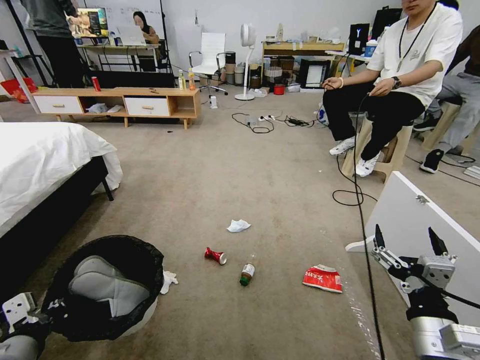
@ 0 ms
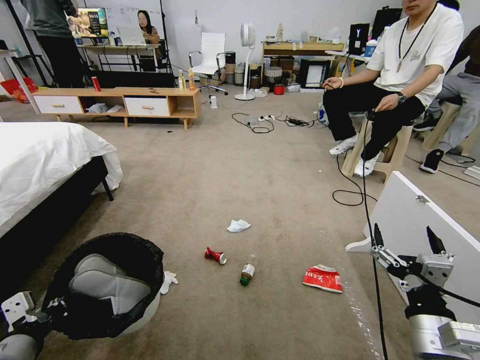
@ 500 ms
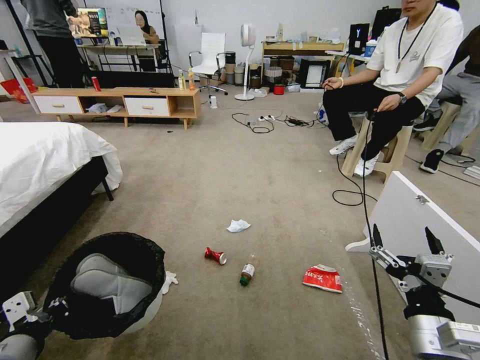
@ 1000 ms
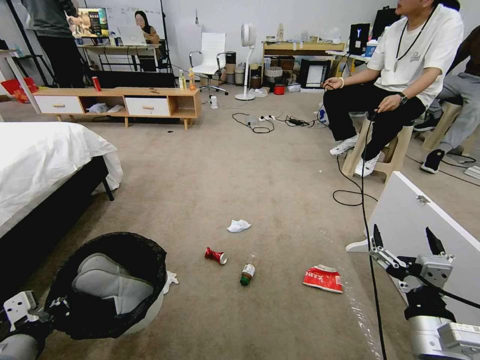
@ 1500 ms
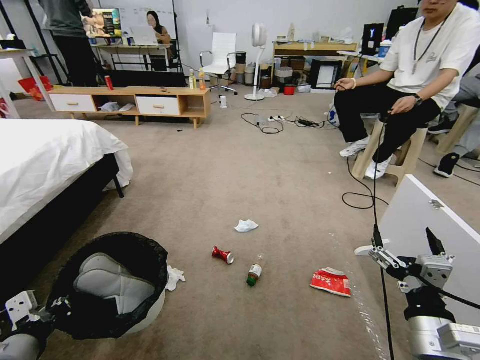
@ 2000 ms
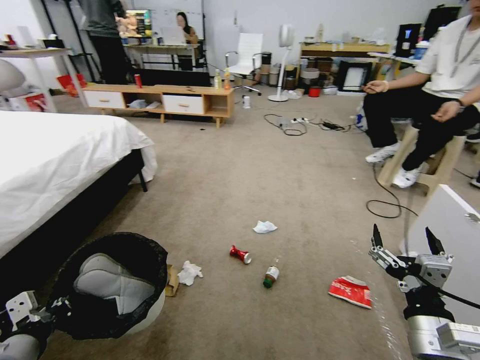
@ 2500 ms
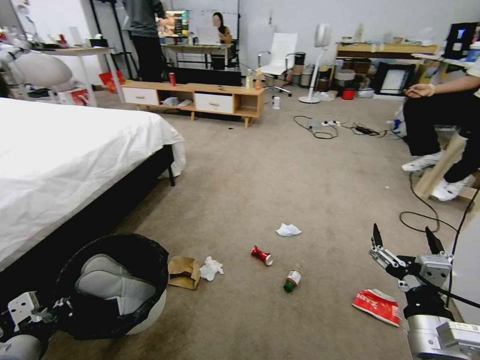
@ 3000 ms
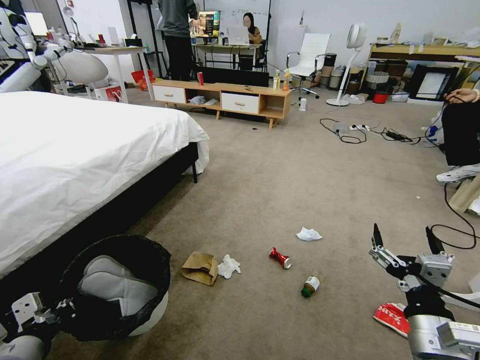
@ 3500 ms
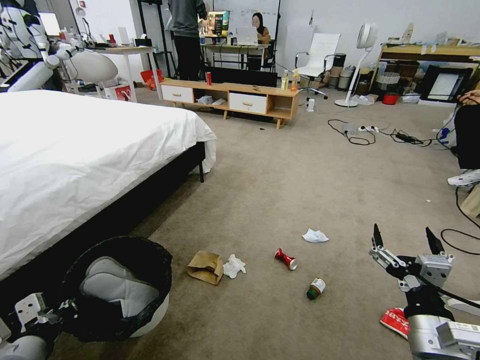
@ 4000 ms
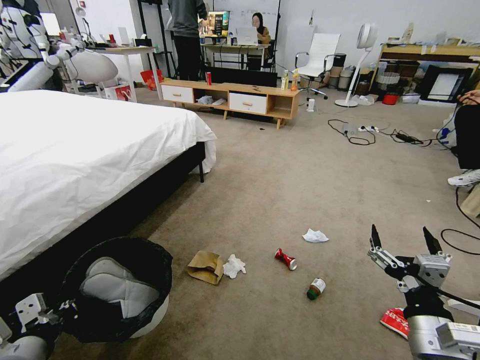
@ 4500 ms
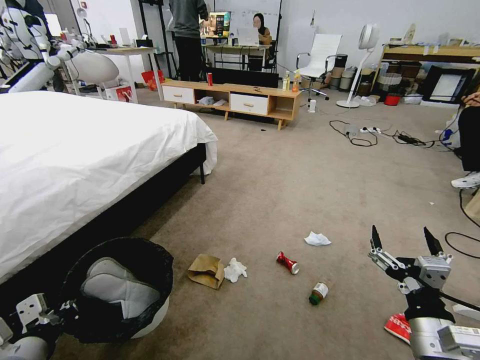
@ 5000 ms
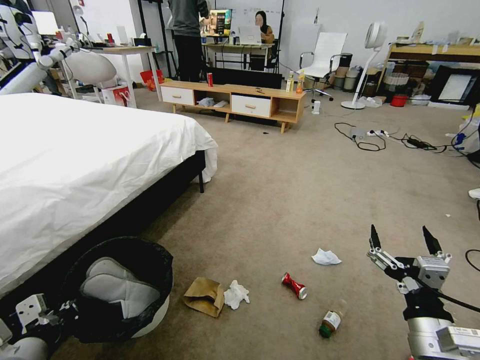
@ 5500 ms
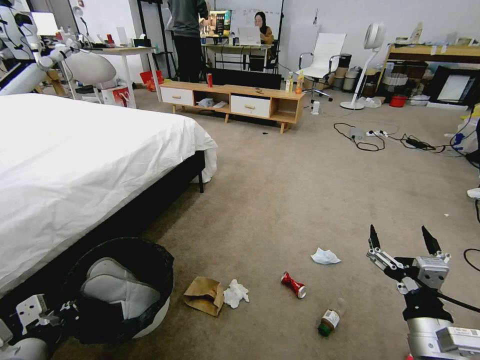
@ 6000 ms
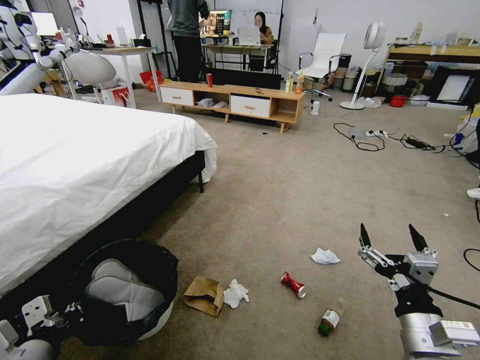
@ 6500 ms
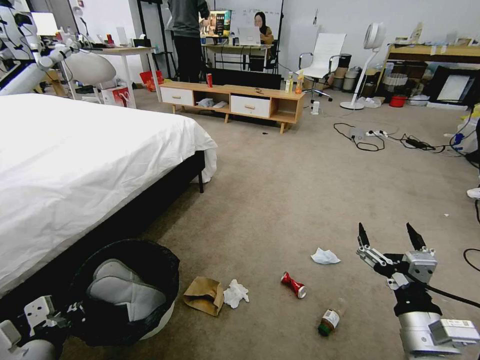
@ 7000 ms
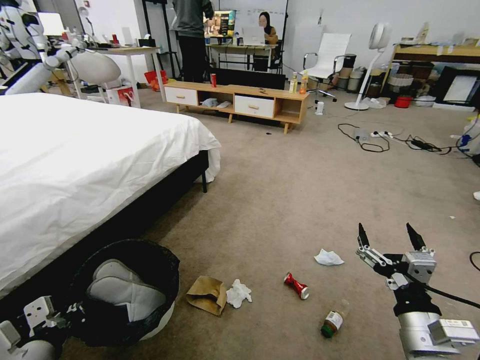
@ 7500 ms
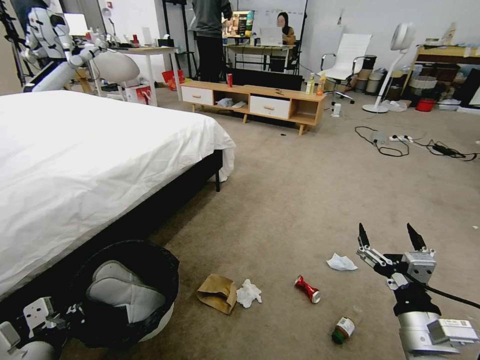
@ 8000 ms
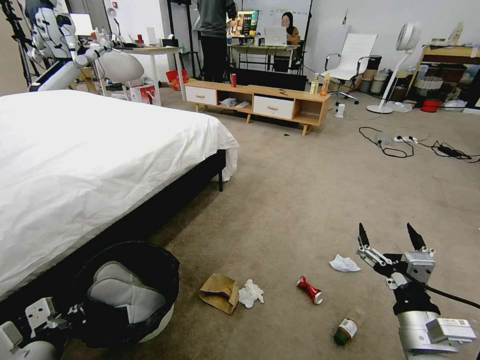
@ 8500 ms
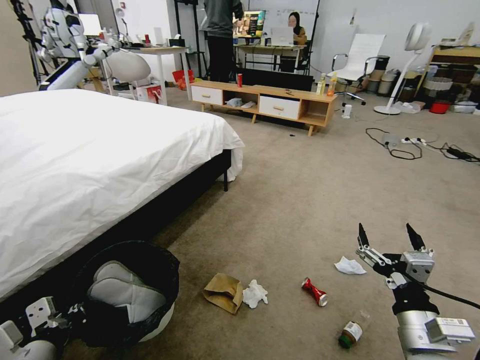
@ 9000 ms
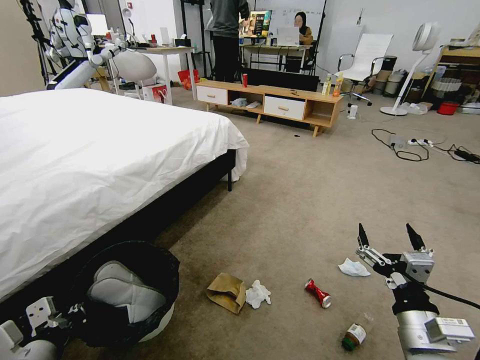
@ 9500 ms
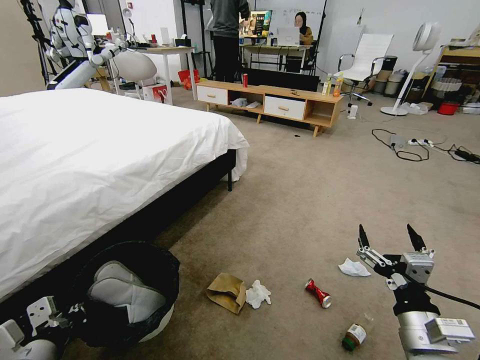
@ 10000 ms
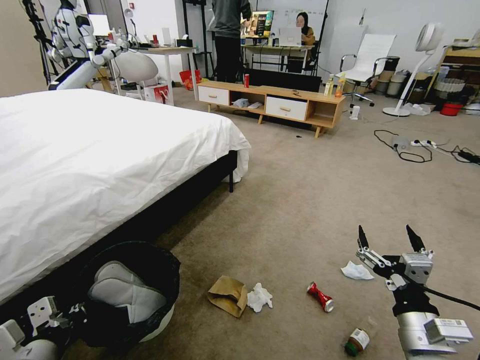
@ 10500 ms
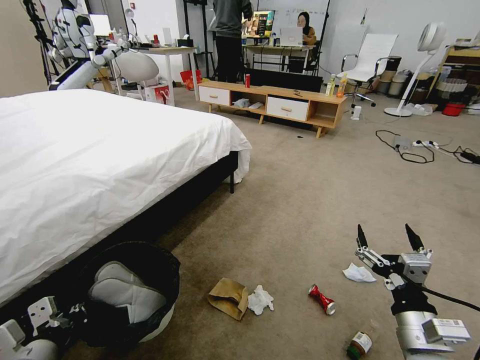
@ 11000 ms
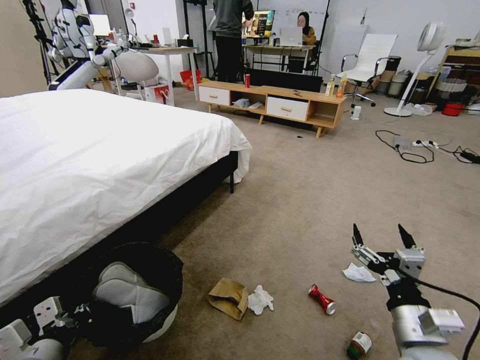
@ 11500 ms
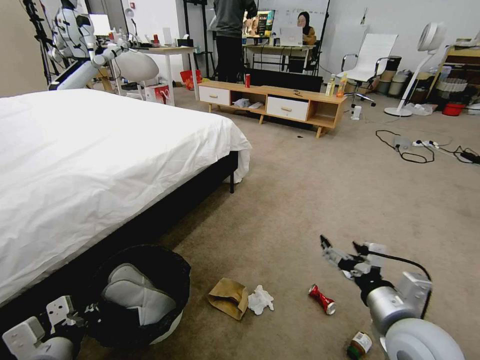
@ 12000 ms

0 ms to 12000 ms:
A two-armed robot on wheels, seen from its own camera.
Task of the whole recording: Pick up the trash bin and place the garbage on the floor into it.
10000 ms to 12000 ms: The right gripper moves approximately 5 cm.

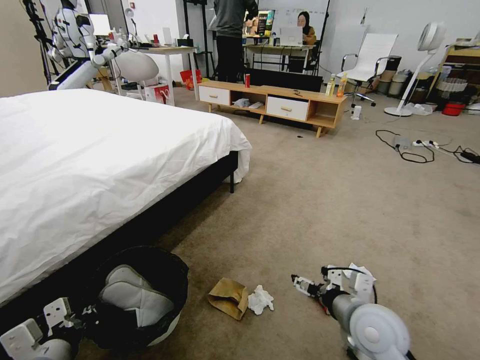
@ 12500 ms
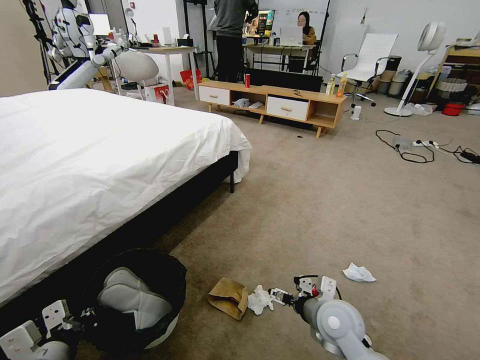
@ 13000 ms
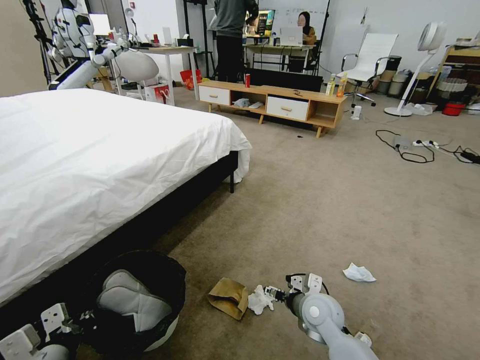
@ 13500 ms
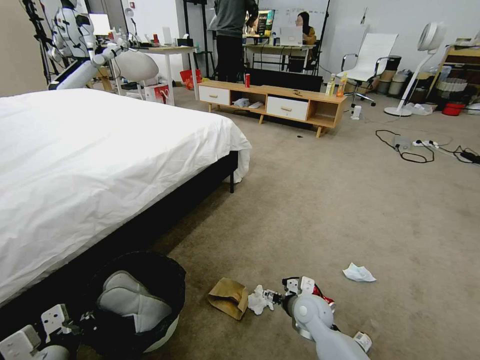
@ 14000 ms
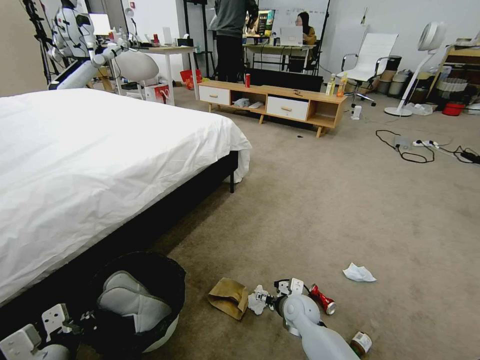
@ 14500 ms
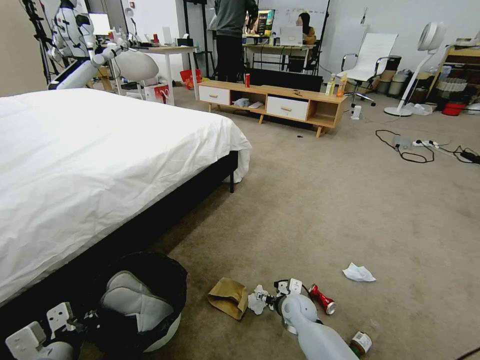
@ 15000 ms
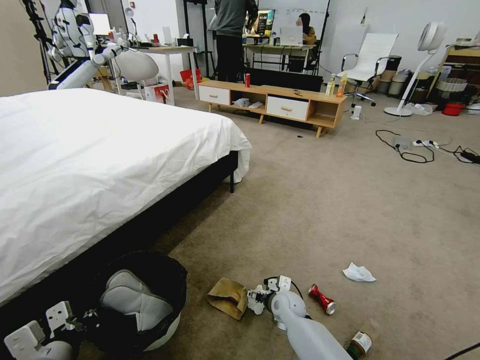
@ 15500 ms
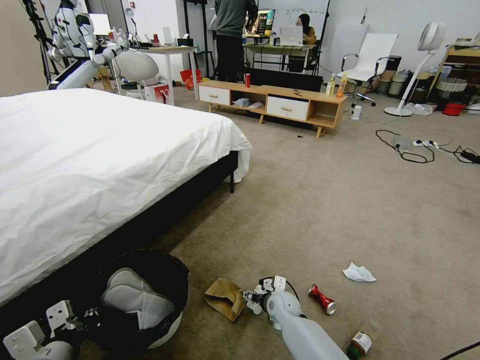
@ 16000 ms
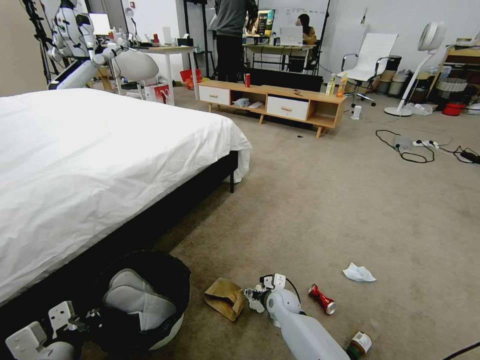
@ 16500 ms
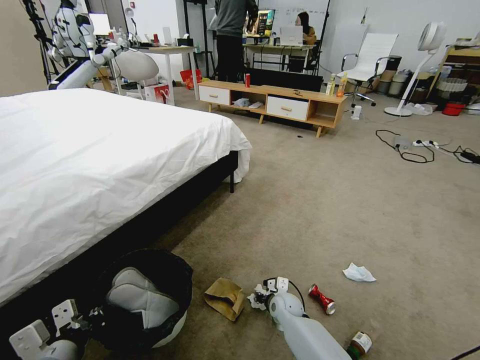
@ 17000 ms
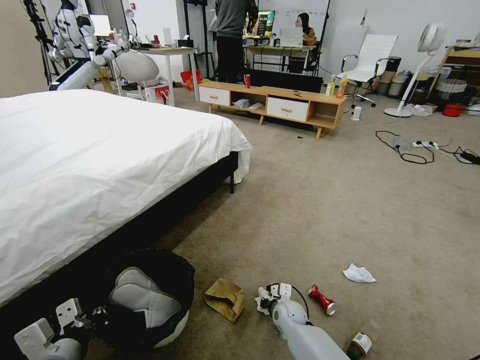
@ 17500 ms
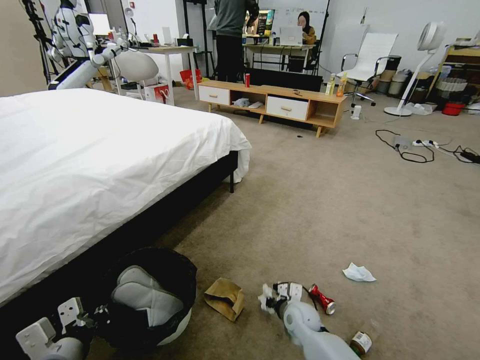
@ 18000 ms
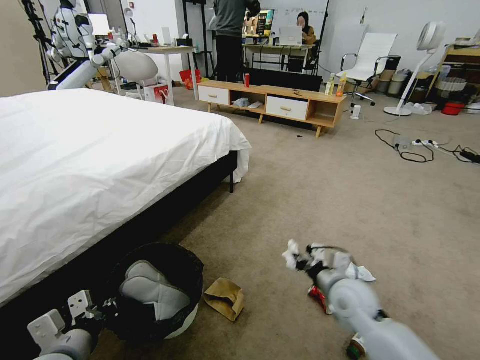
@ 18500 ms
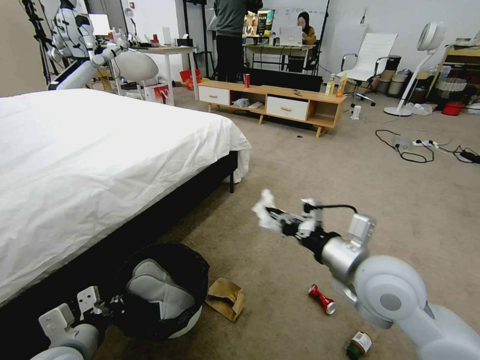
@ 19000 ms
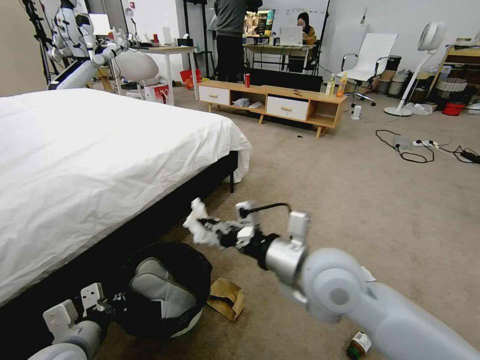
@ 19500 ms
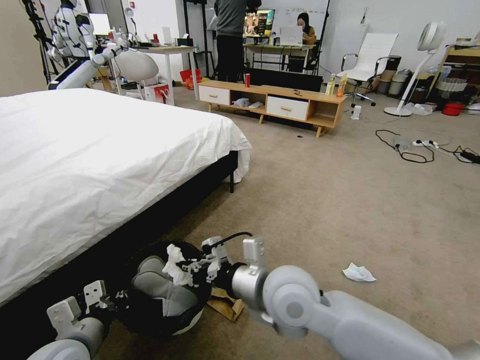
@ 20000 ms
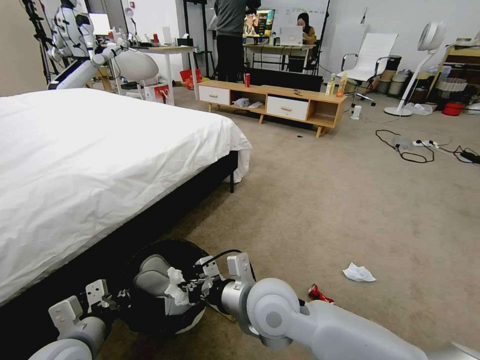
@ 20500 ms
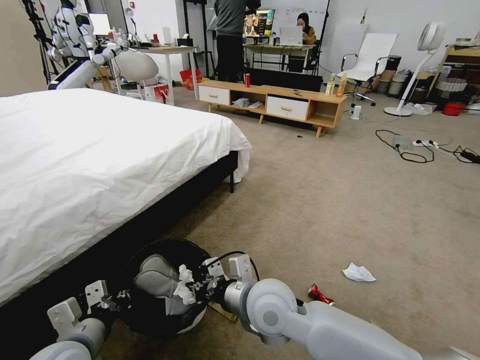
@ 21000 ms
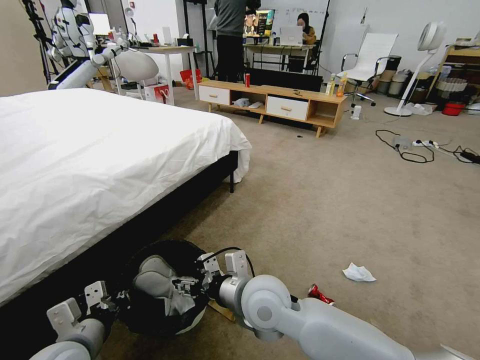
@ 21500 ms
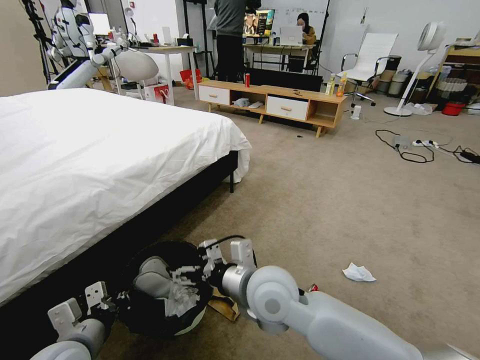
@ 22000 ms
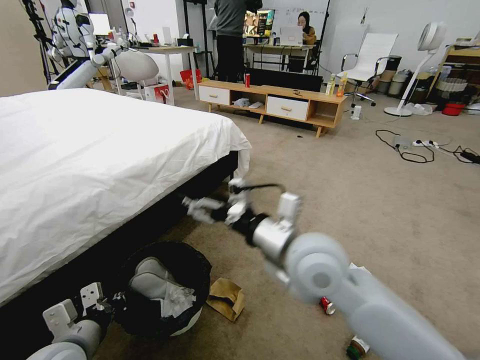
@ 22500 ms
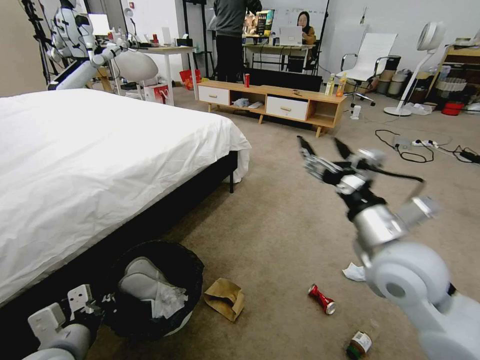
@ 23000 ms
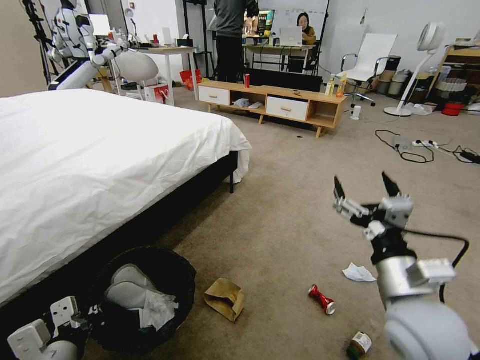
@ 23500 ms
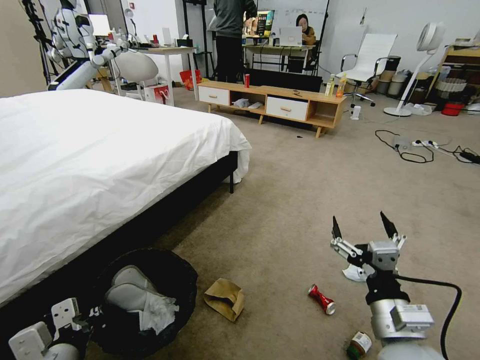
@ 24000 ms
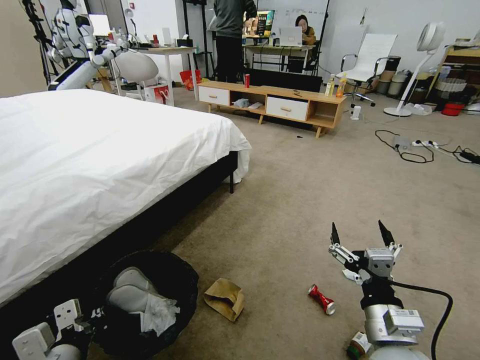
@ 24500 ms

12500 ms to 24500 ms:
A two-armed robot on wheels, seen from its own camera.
Task of the whole recording: Pick up the trash bin and place the garbage on the floor into it.
12500 ms to 14500 ms: The right gripper moves downward, forward and to the left, about 25 cm.
14500 ms to 16500 ms: The right gripper shifts by about 5 cm.
16500 ms to 18500 ms: The right gripper heads upward, to the right and backward, covering some 25 cm, and closes its fingers.
18500 ms to 20500 ms: The right gripper shifts approximately 25 cm to the left and upward.
20500 ms to 22500 ms: The right gripper is displaced upward and to the right by about 15 cm, and opens its fingers.
22500 ms to 24500 ms: The right gripper heads downward, to the right and backward, covering about 25 cm, while the left gripper ends up roughly 5 cm from where it was.

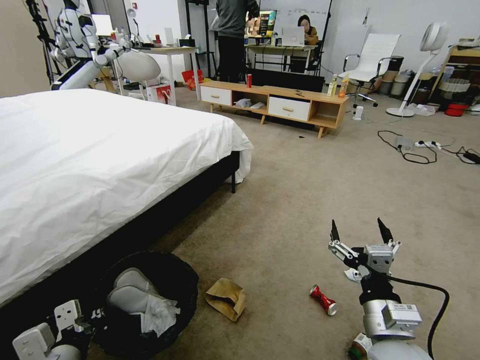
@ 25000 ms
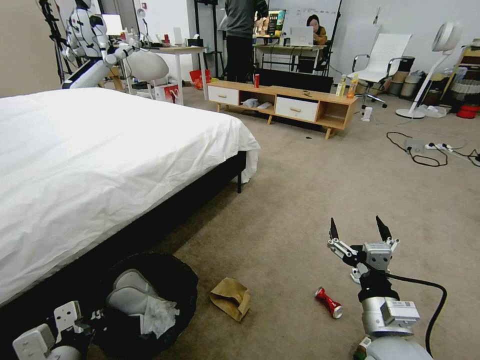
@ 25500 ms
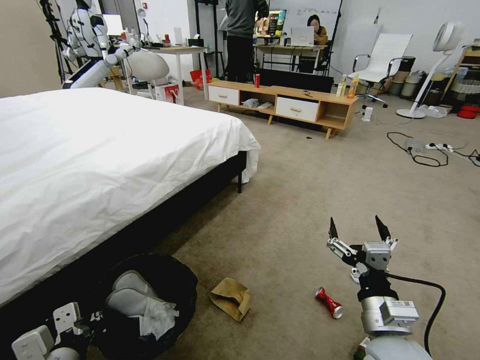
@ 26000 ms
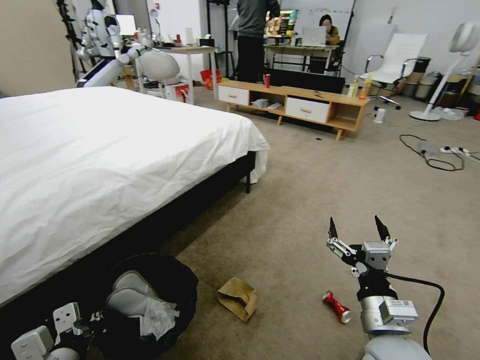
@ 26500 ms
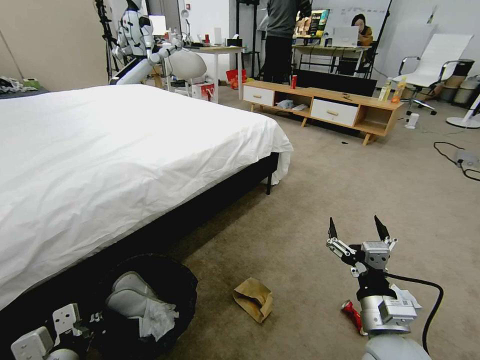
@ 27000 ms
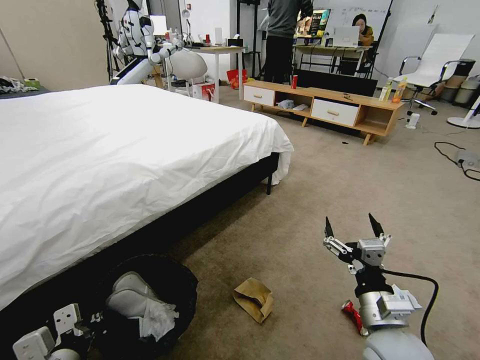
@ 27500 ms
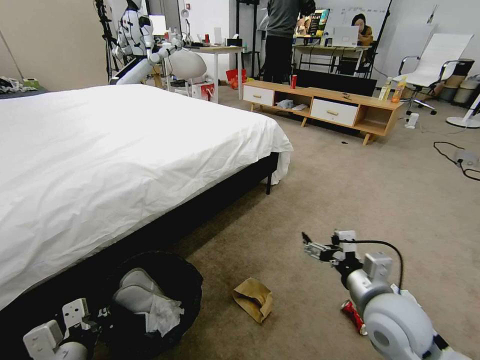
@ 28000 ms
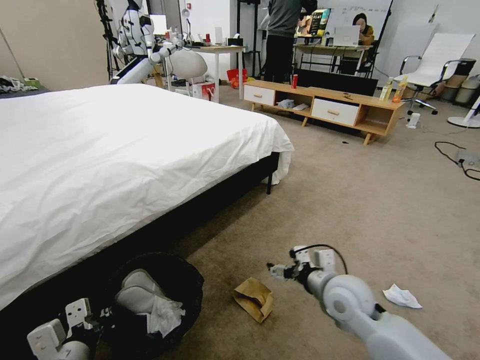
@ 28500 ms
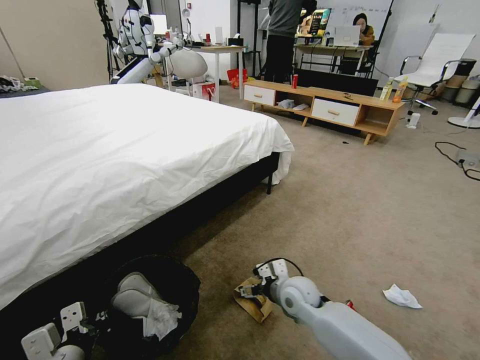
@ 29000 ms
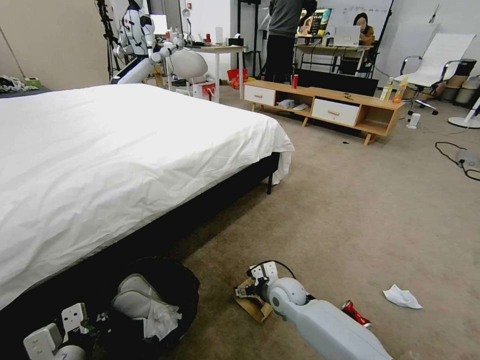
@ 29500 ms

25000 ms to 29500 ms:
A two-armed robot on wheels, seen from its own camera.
Task of the whole recording: Pick up the trash bin and place the garbage on the floor into it.
27000 ms to 29500 ms: The right gripper travels forward, downward and to the left by some 30 cm.
